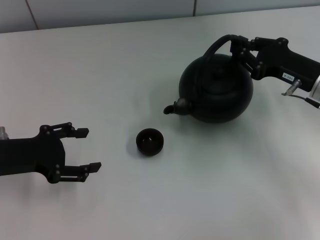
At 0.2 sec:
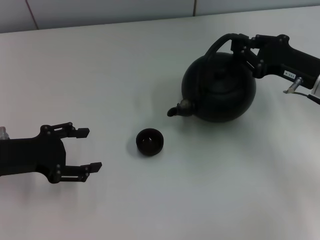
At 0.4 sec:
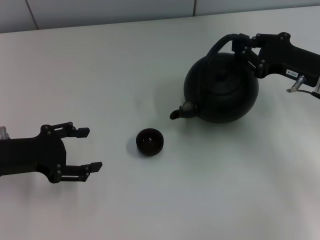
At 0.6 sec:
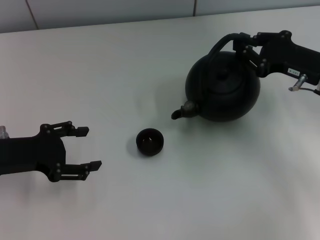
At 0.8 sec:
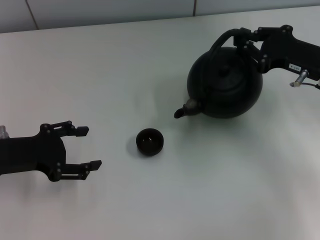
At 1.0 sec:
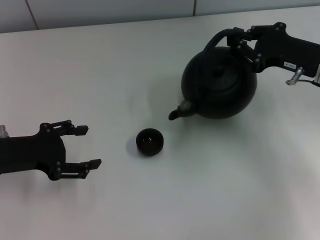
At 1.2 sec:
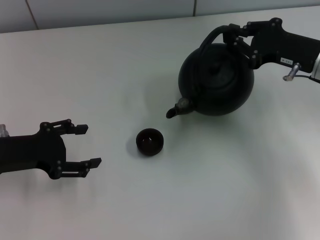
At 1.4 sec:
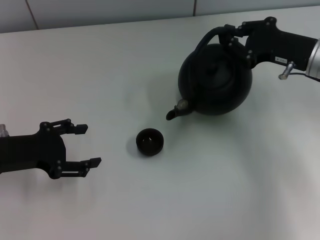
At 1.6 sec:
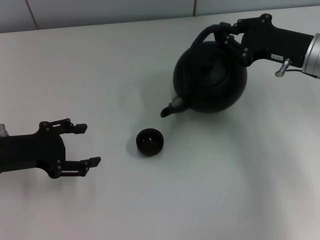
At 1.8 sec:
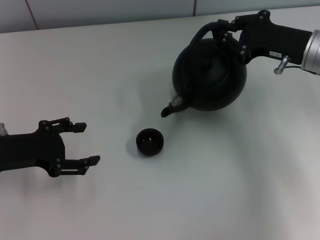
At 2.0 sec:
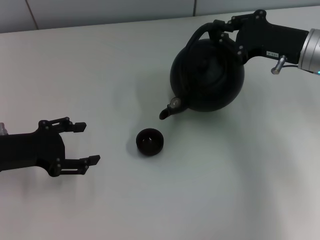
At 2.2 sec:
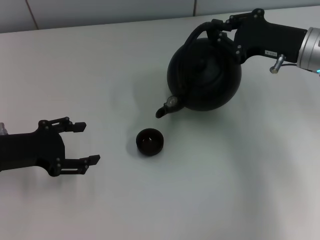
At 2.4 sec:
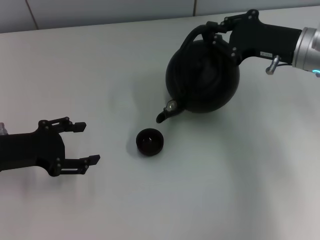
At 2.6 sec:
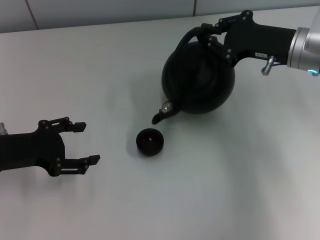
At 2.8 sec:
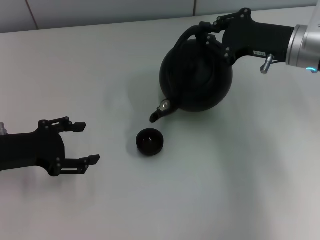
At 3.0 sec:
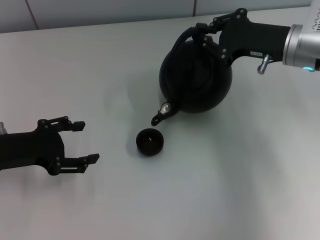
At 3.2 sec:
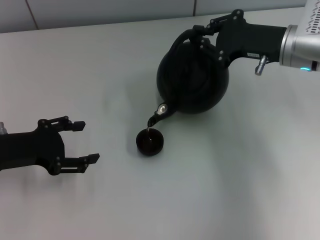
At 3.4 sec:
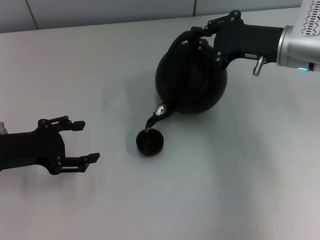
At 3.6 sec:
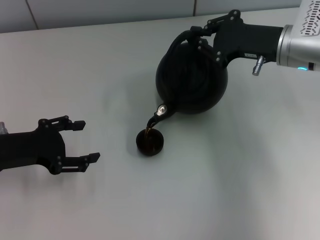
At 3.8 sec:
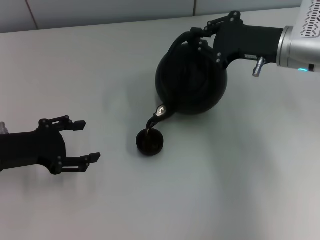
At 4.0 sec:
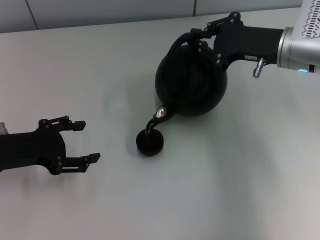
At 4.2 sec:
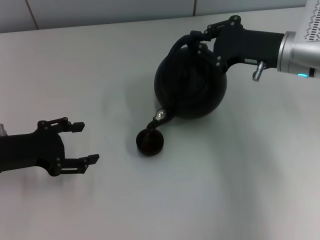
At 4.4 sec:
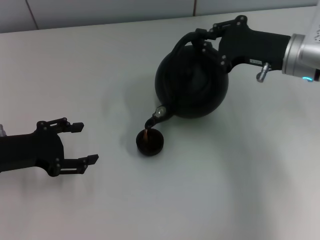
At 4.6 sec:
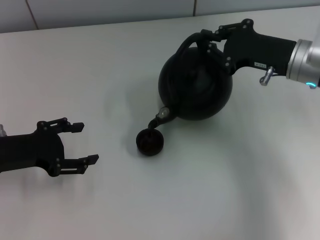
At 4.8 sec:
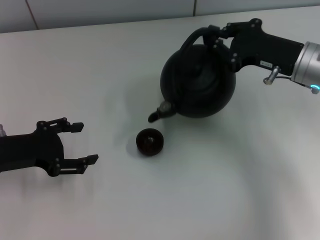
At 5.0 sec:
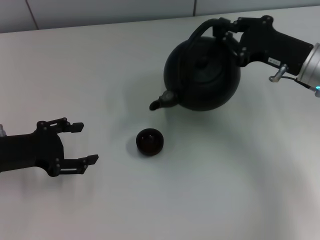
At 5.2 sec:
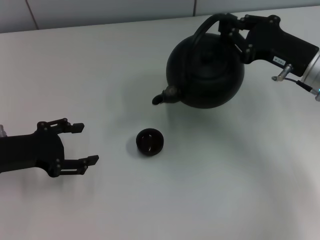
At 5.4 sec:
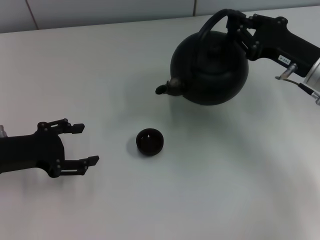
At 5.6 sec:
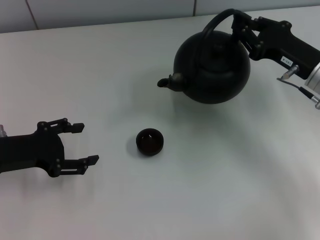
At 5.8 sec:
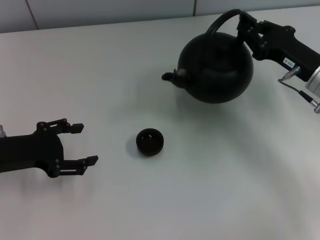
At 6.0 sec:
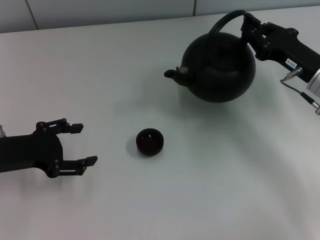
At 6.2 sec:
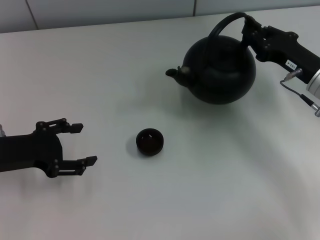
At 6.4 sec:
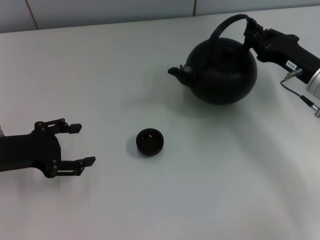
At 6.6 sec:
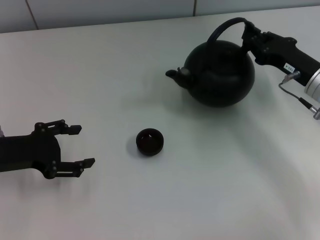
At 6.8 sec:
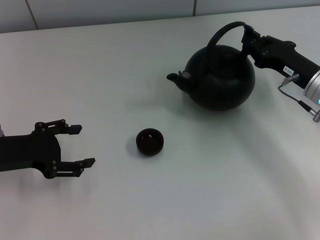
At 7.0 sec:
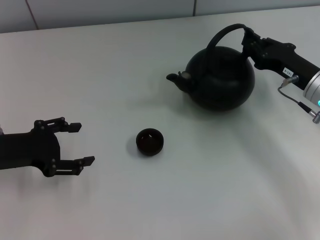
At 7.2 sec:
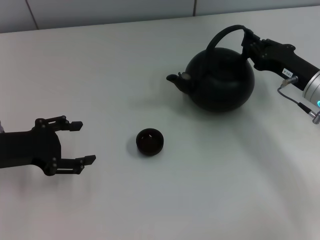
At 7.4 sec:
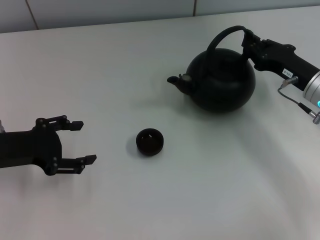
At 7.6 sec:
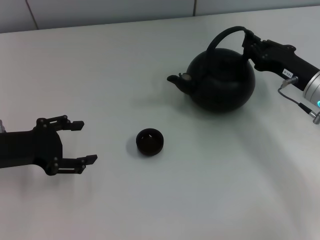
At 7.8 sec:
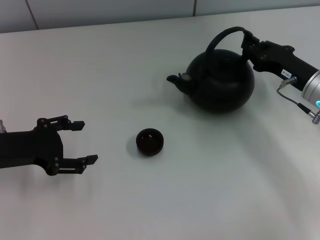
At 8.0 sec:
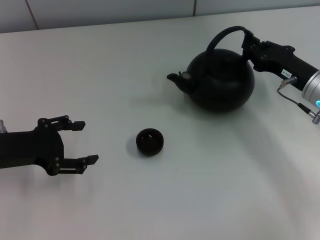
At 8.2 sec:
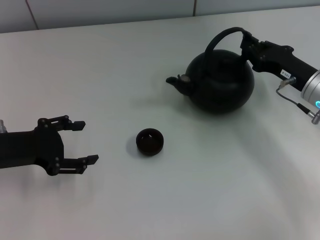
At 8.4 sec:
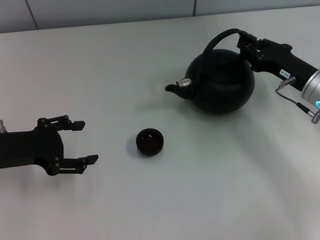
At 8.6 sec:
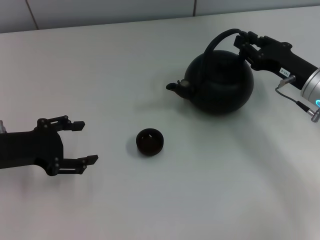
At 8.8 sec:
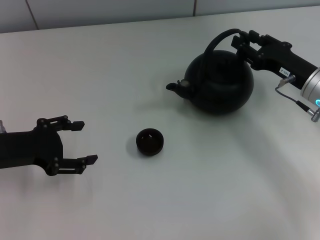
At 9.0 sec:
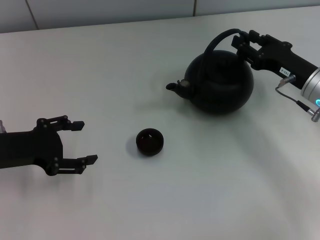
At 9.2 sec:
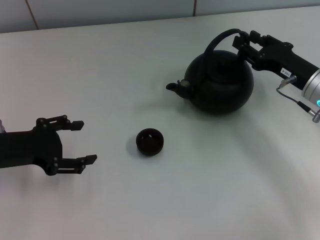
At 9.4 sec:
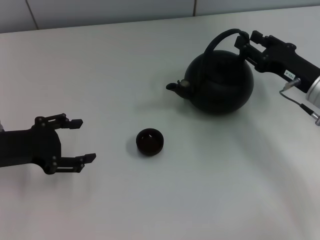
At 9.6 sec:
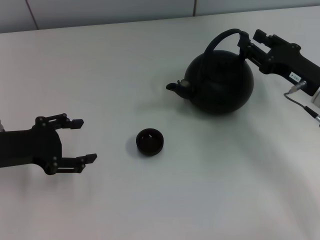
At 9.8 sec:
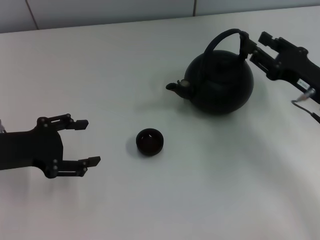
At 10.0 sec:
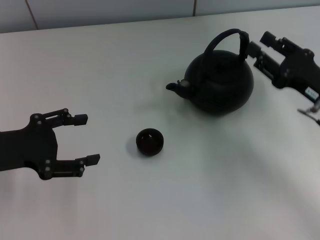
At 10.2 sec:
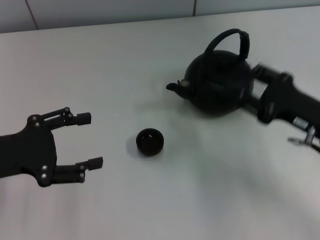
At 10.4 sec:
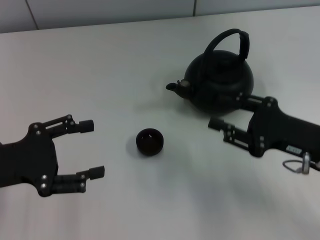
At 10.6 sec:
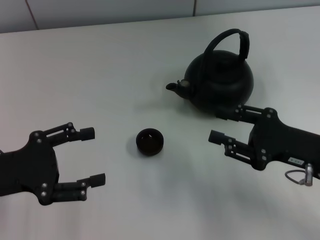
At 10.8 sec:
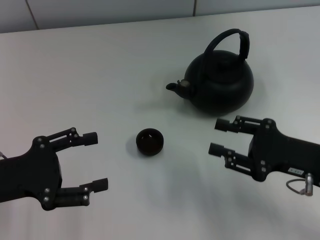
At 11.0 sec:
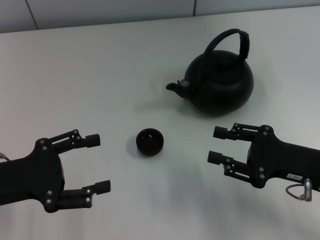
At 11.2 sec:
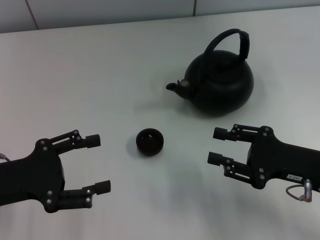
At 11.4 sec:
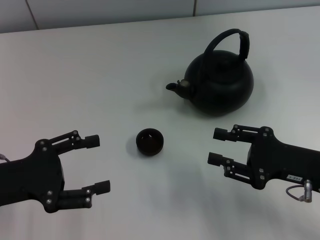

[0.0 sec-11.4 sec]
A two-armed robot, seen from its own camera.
Task of the whole recording: Grasp the handle of the teapot with one hand and pour tea into the teacup.
Step, 5.0 sec to 9.8 sec: Put down the teapot with the right gripper.
0.0 sec to 1.4 sec: The grippers make only small movements.
1.4 sec to 4.2 sec: The grippers move only a little.
4.2 sec to 5.6 sec: The right gripper ends up about 5 cm from where it was.
5.6 sec to 7.2 sec: There are only small adjustments of the grippers.
7.2 sec to 8.6 sec: Both grippers stay put.
8.6 sec to 10.0 sec: The right gripper goes some 5 cm backward, and opens.
10.0 sec to 11.4 sec: The right gripper moves backward, roughly 5 cm.

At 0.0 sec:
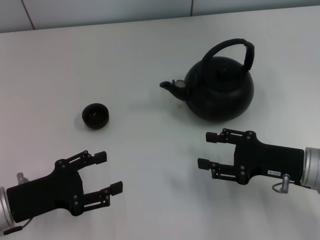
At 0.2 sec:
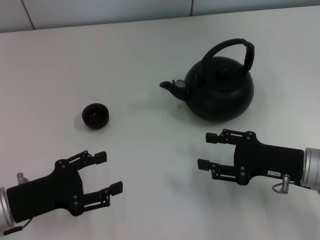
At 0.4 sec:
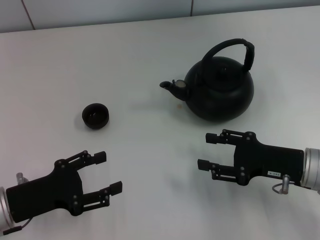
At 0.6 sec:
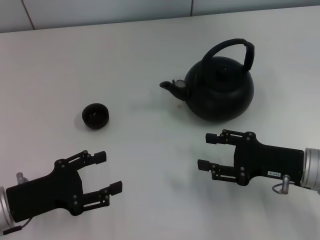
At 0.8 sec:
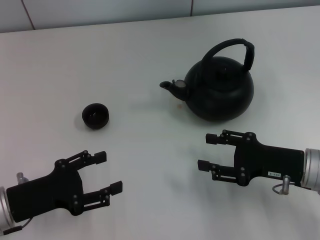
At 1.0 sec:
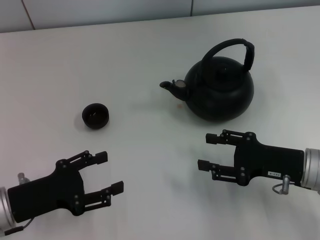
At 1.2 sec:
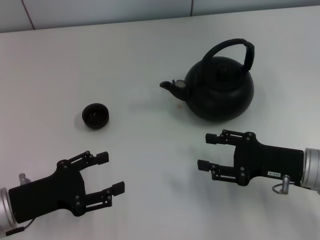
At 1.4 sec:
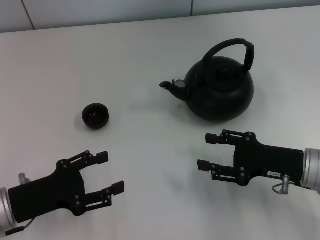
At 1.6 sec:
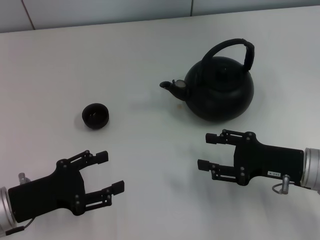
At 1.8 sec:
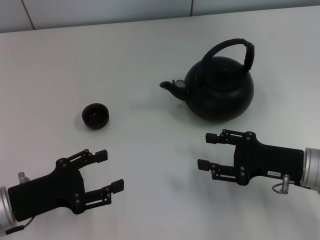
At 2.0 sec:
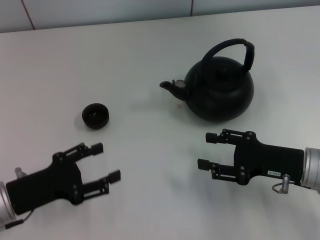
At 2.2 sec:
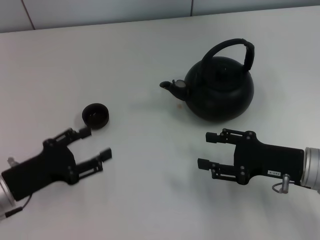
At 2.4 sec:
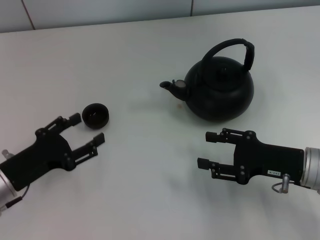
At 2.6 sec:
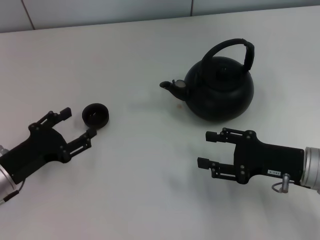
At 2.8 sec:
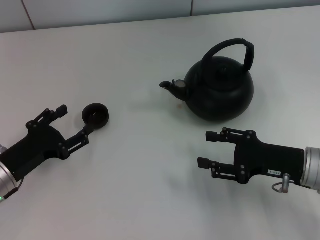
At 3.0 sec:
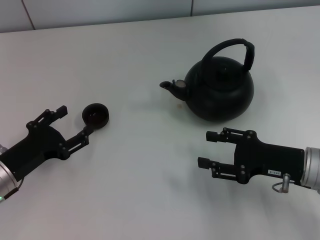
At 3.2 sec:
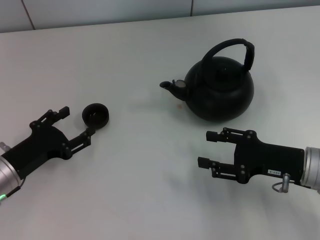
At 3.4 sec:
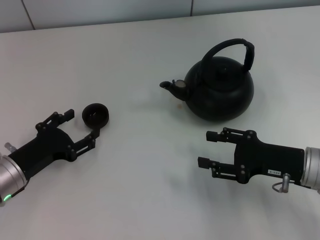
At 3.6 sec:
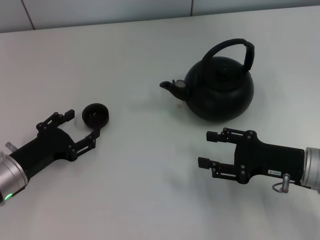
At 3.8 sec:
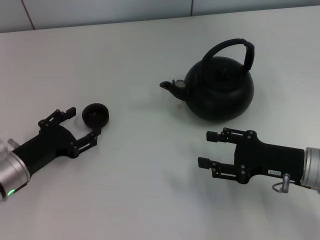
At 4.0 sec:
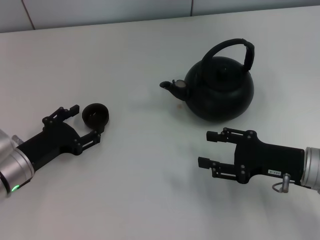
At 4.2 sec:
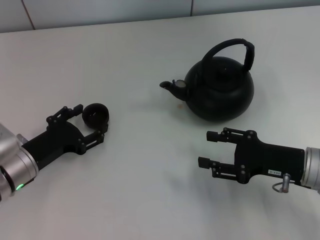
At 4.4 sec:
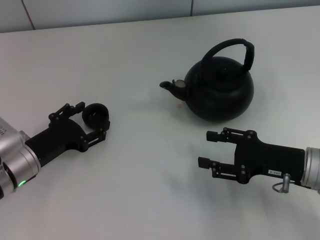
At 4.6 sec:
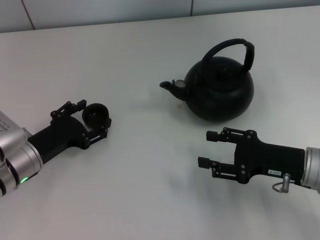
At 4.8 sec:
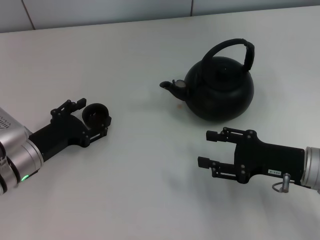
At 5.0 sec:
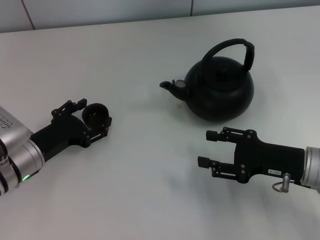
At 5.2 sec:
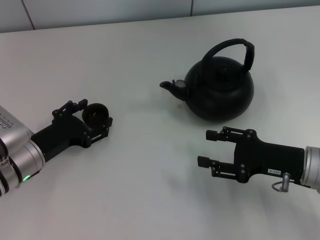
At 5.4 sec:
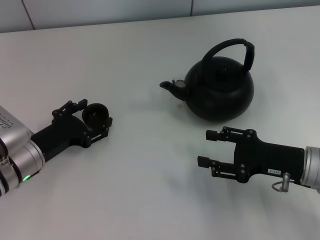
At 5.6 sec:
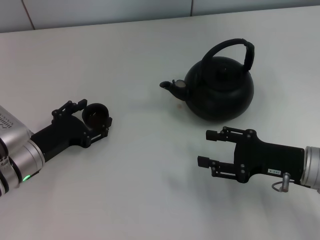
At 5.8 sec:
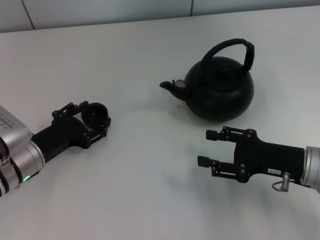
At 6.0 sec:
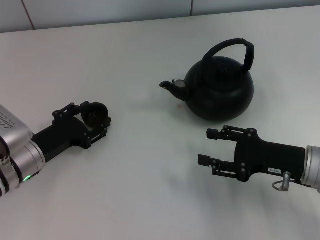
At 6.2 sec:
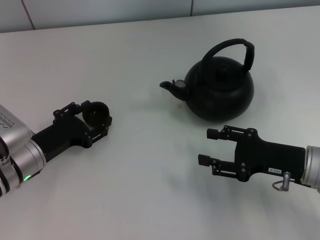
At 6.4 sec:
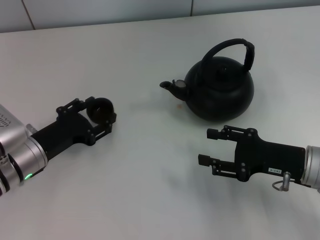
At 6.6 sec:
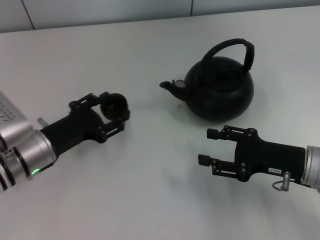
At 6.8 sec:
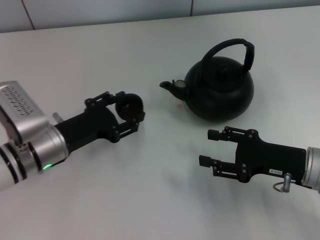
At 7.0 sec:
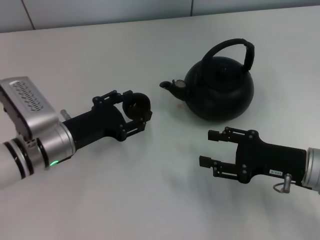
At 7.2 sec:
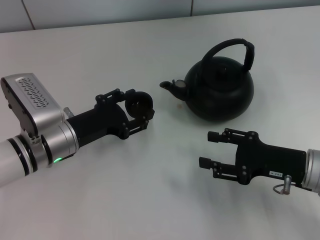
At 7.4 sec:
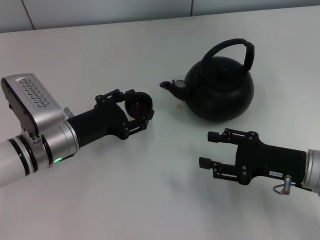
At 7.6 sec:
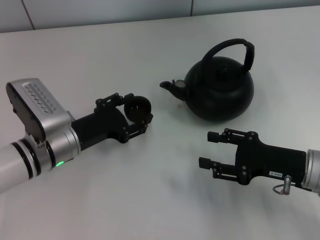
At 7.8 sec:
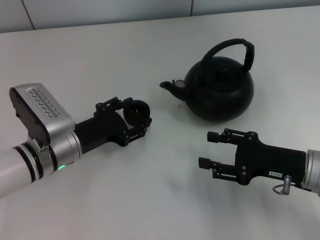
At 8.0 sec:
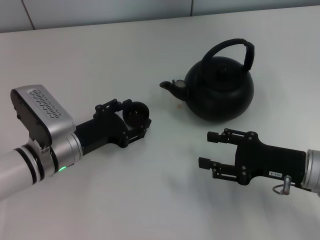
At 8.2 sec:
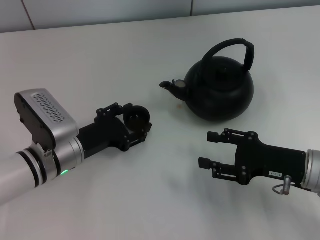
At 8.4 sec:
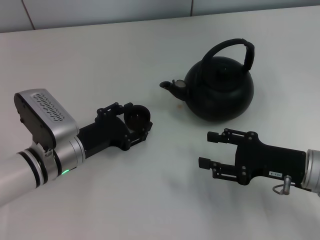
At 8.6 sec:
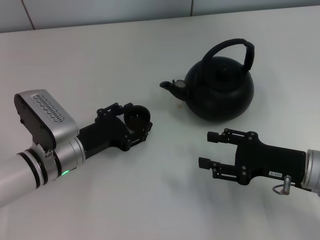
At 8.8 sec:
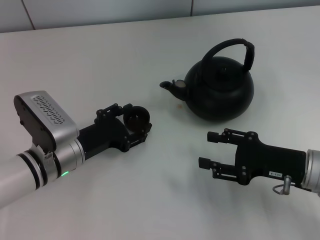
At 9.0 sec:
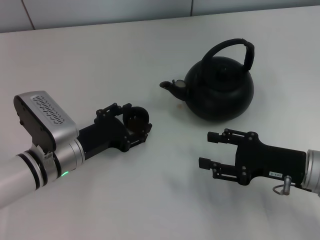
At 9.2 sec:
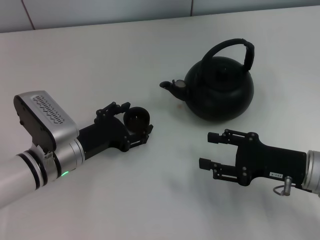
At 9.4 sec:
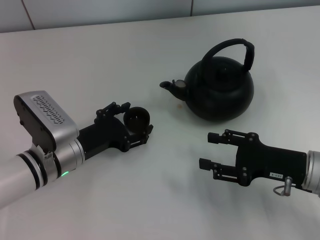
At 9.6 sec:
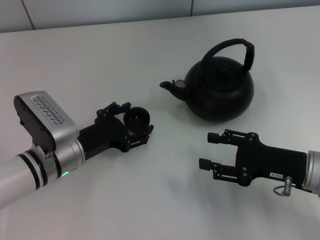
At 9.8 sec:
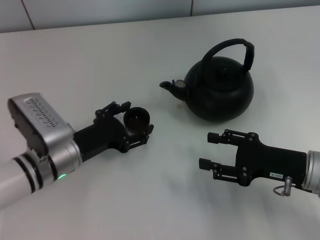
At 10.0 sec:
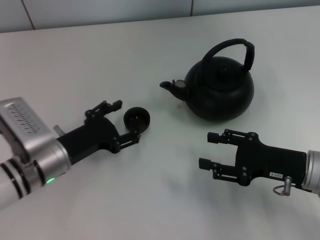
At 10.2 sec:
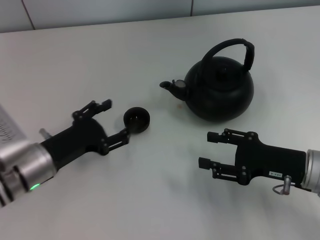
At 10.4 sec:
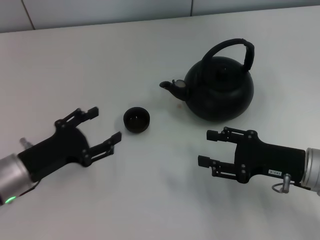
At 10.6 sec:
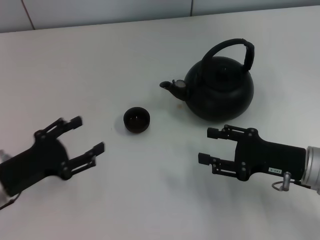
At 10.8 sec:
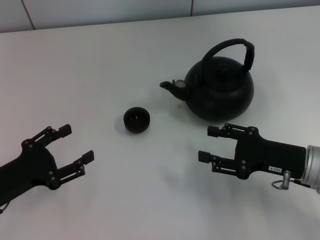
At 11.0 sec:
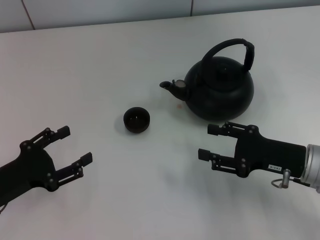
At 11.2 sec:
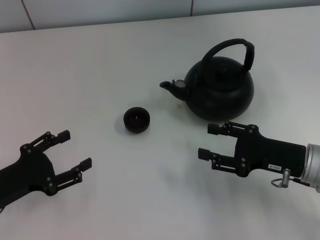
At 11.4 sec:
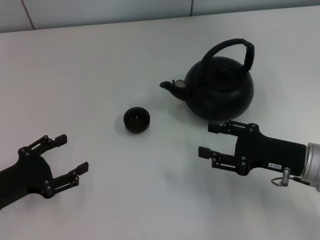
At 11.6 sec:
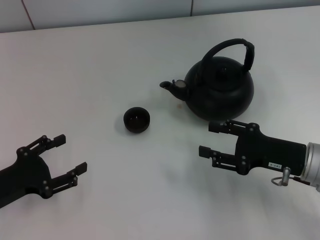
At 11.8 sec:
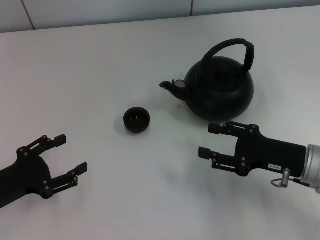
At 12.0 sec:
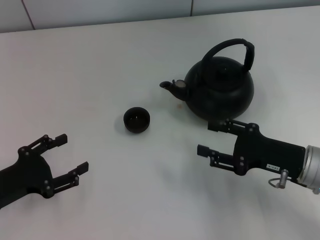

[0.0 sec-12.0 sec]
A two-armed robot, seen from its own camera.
Task of the whole recording: Grasp the handle of the teapot with one hand and pour tea into the teacup.
Step, 0.0 sec to 6.6 sec: Pick up the teacup with the left gripper.
Step, 7.0 sec to 10.2 sec: Place the teacup in the center of view with the left gripper.
0.0 sec to 1.6 sec: The two grippers keep their place.
3.0 sec to 4.4 sec: The grippers stay close to where they were, moving slightly.
4.4 sec to 6.0 sec: Both grippers stay put.
6.0 sec to 7.6 sec: The left gripper shifts about 5 cm to the right, and closes up.
7.6 sec to 9.0 sec: The grippers stay close to where they were, moving slightly.
9.0 sec to 10.4 sec: The left gripper heads to the left, covering some 5 cm, and opens its fingers.
10.4 sec to 12.0 sec: The left gripper shifts some 5 cm to the left.
